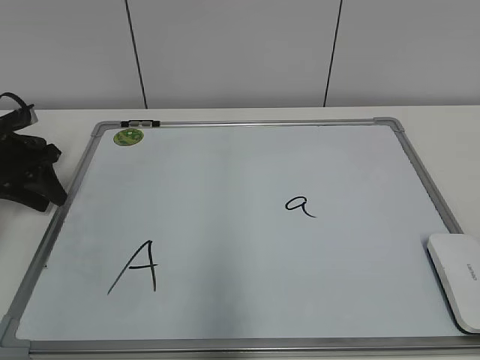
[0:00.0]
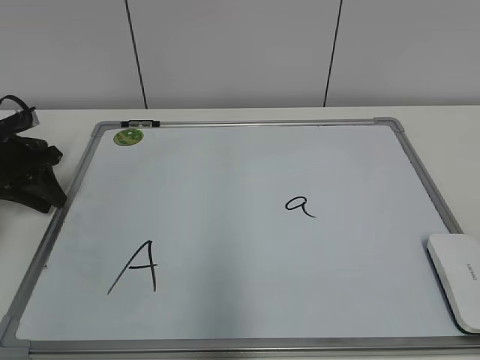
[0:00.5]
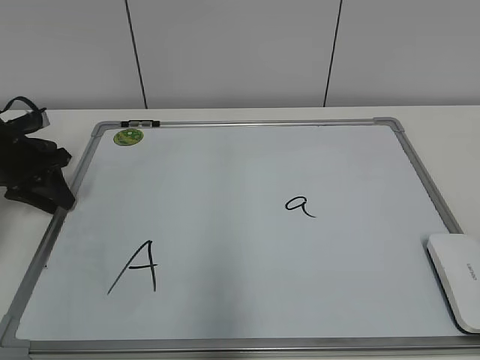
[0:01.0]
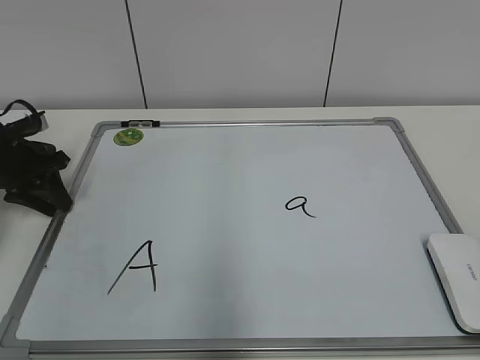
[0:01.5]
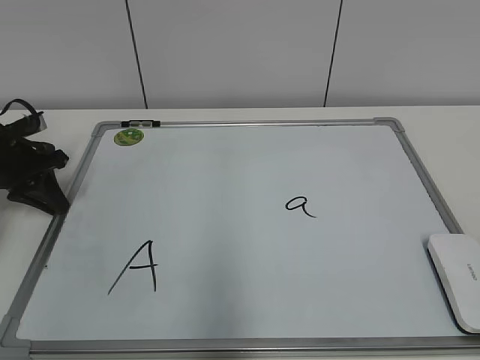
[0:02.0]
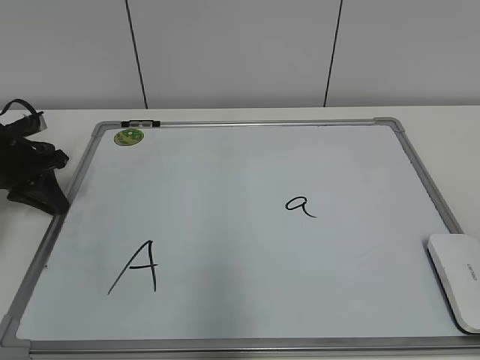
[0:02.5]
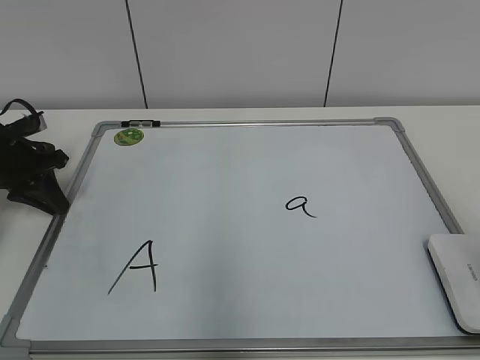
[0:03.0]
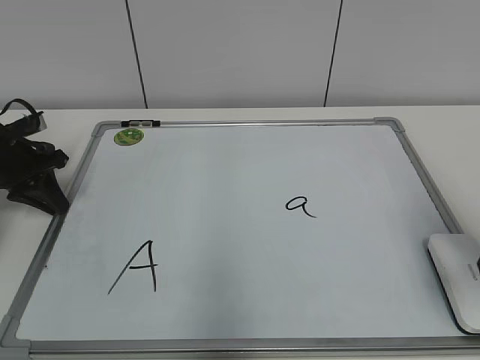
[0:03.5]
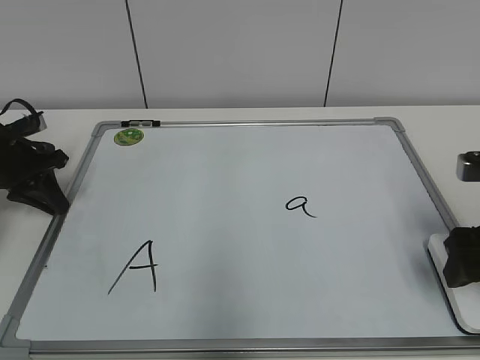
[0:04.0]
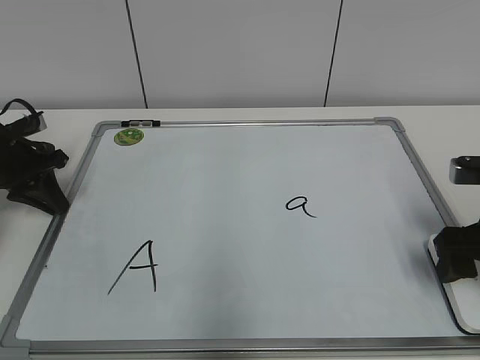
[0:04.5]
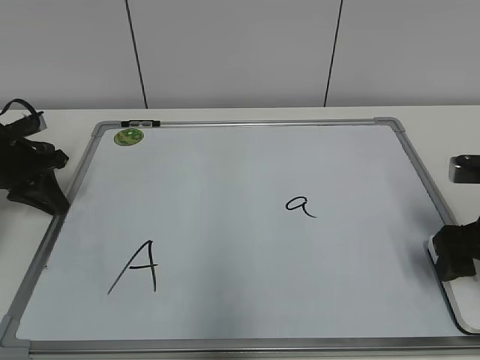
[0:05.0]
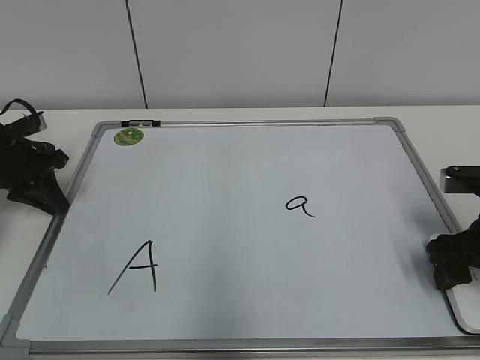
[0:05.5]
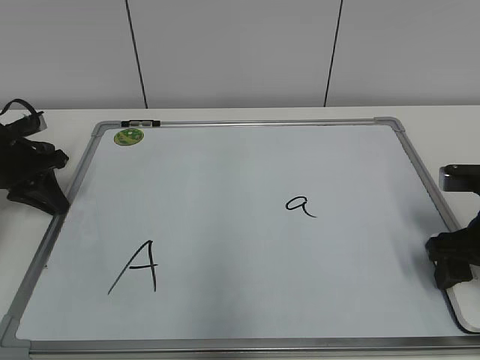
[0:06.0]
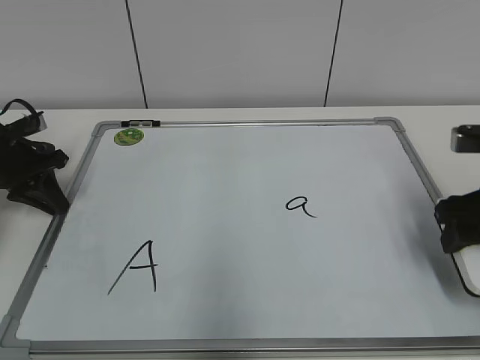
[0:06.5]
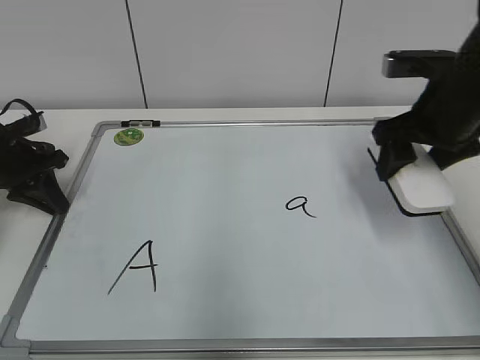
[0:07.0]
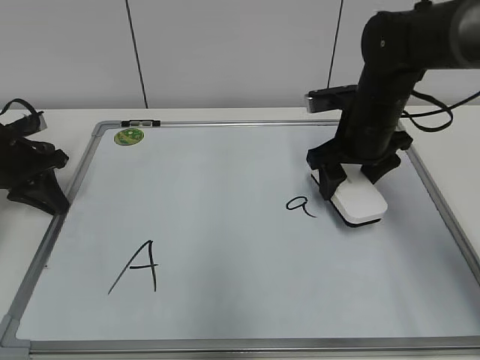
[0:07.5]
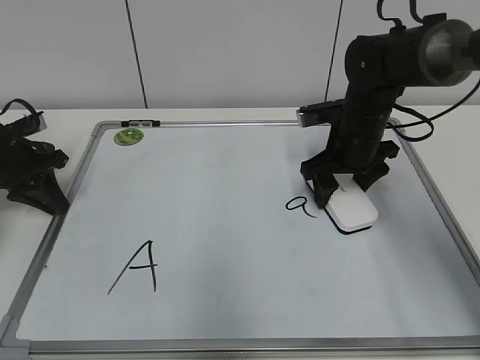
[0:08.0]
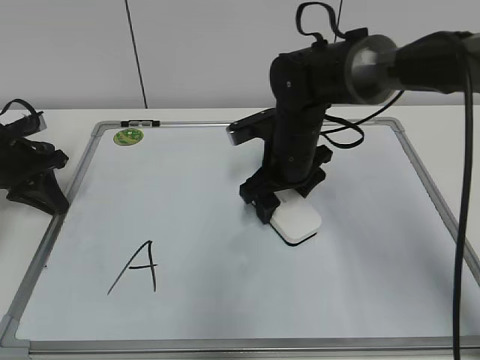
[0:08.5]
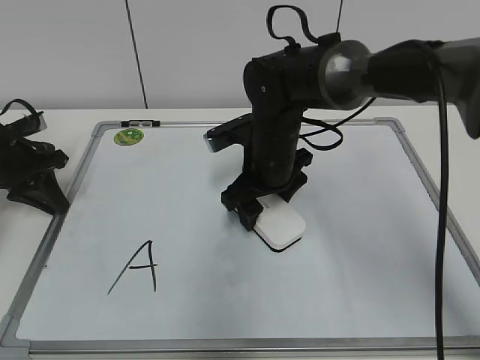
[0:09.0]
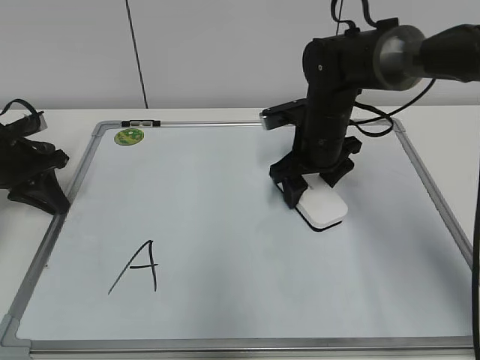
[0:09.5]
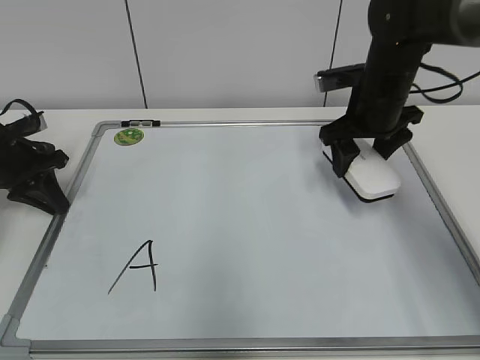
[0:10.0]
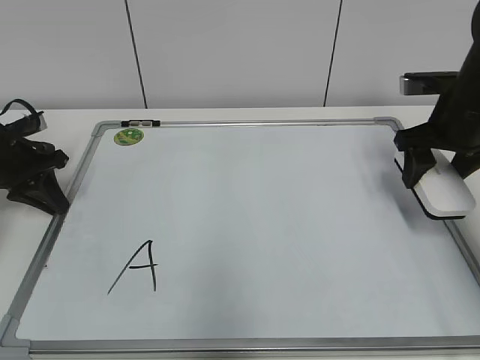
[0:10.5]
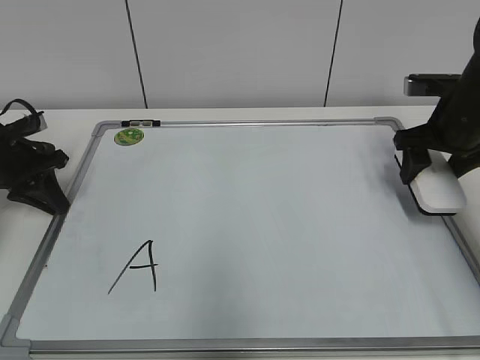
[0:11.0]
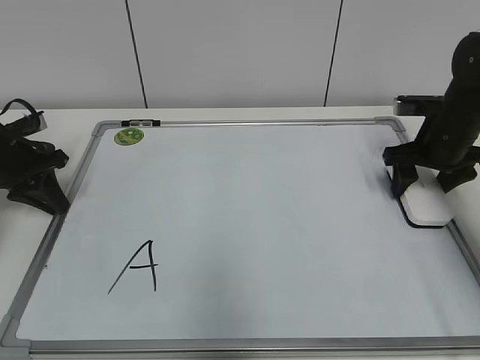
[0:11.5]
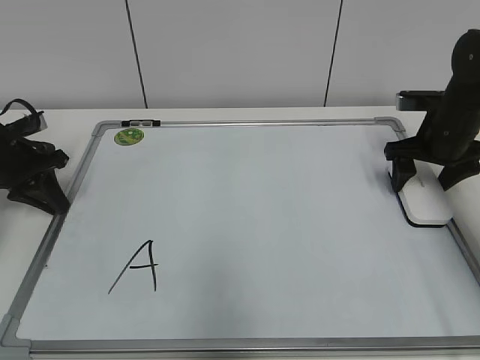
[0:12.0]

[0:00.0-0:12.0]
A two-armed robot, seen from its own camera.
Task of the whole recording: pick up the eraser on the blackboard and erase the letter "a".
Step, 0:00.0 to 0:02.0: Hold the drawing board steady with your left hand.
Step, 0:02.5 to 0:05.5: Grab the eraser with your right hand.
Step, 0:06.0 to 0:09.5: Erase the letter a with your right hand.
Step, 0:10.0 to 0:11.5: Put down the eraser with your right hand.
0:00.0 to 0:02.0: The left gripper closes.
0:02.0 to 0:04.0: The right gripper is displaced forward by approximately 25 cm.
0:04.0 to 0:06.0: The grippers move only a little.
0:06.0 to 0:08.0: The right gripper shifts about 20 cm forward and to the left.
0:08.0 to 0:10.0: The right gripper moves upward, roughly 5 cm, and moves some 10 cm to the left and comes back.
0:10.0 to 0:12.0: The right gripper heads to the right, covering some 10 cm.

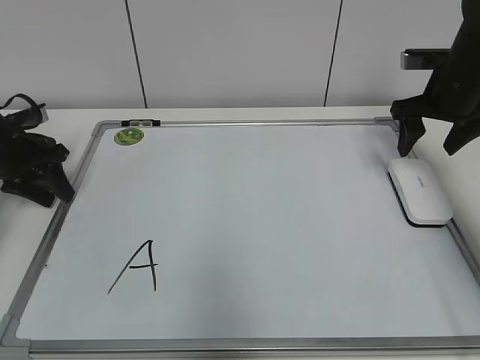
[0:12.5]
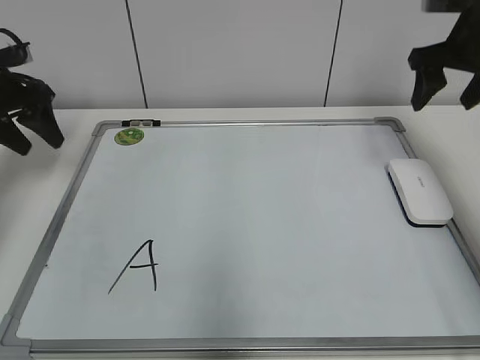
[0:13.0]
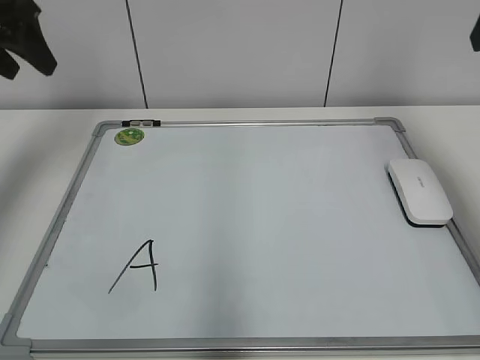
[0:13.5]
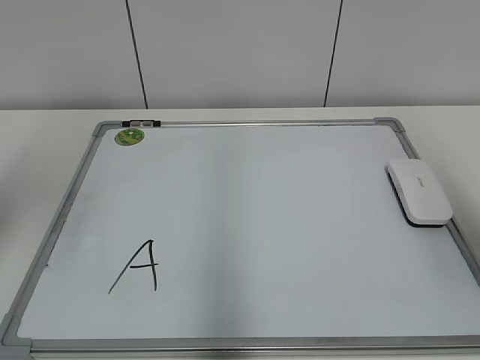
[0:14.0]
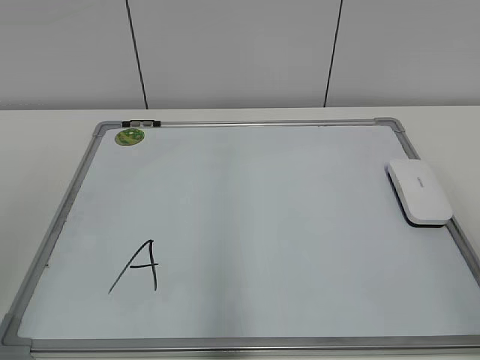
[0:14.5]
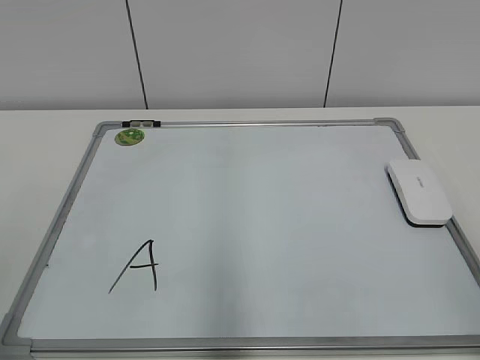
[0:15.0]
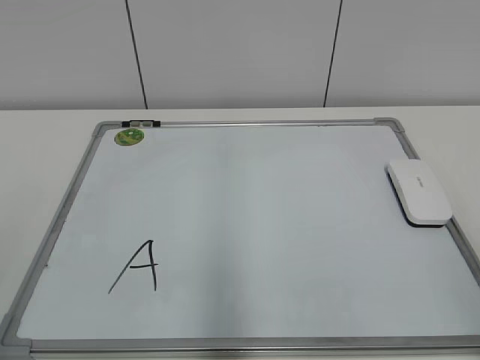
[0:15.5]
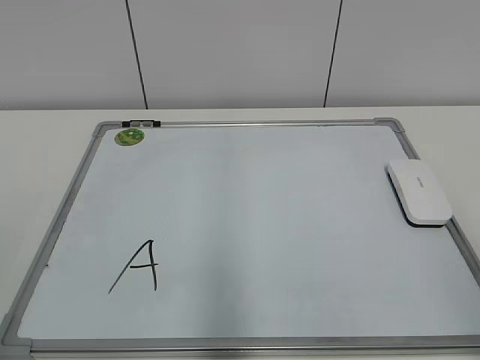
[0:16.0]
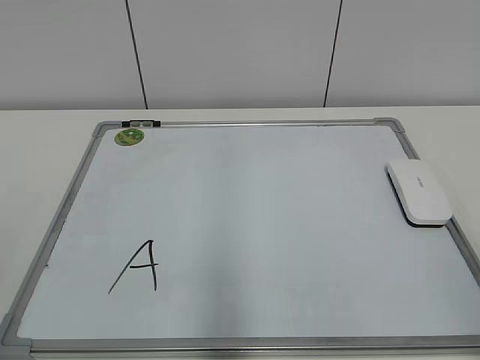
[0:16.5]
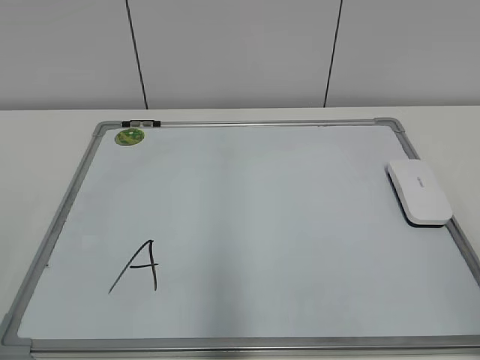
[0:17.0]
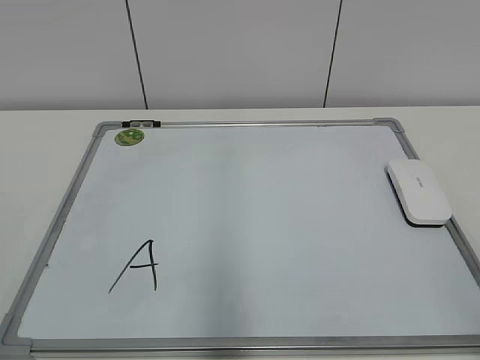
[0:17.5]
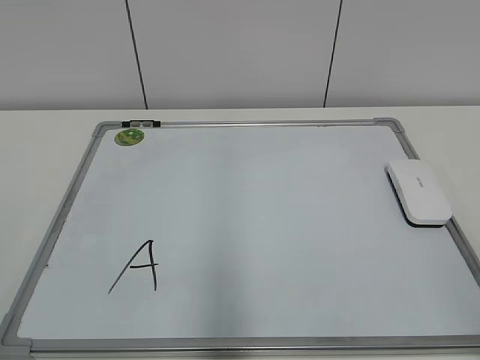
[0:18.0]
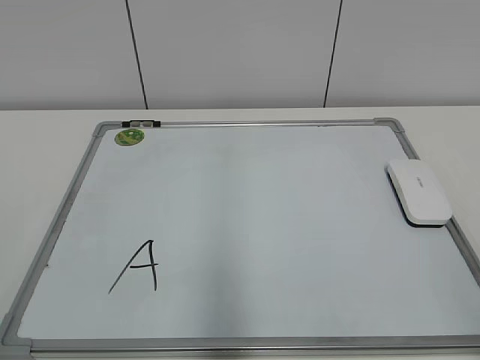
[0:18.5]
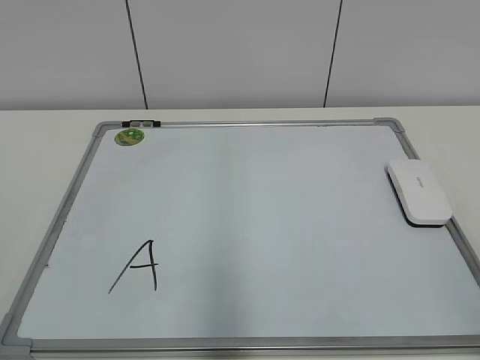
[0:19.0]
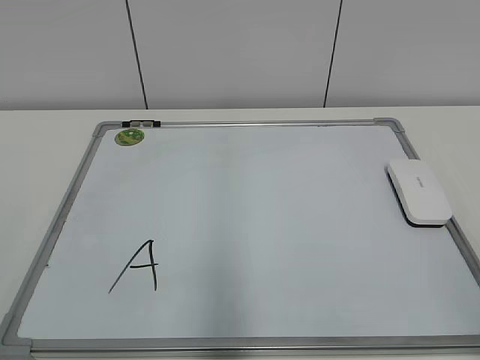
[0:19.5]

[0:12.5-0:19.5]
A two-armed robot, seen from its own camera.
Task of the whole recording: pick up the eraser on the blackboard and erase the letter "a".
0:12.5 to 0:14.5: The right gripper travels backward by roughly 35 cm. The left gripper travels backward and upward by some 35 cm, and opens up.
0:17.5 to 0:19.5: Both grippers stay about where they are.
